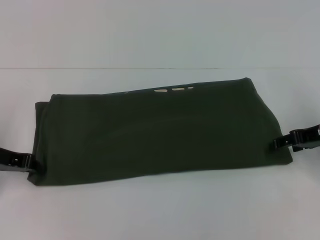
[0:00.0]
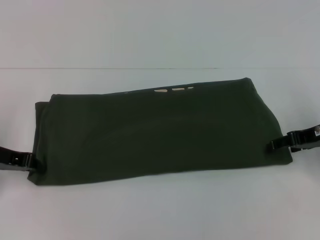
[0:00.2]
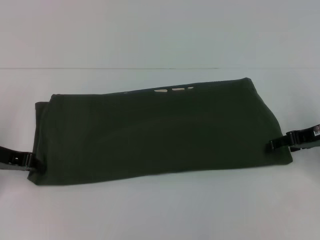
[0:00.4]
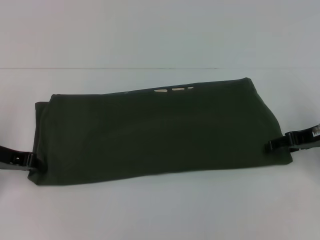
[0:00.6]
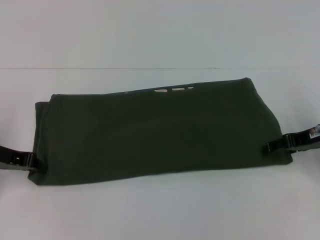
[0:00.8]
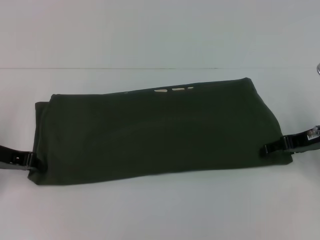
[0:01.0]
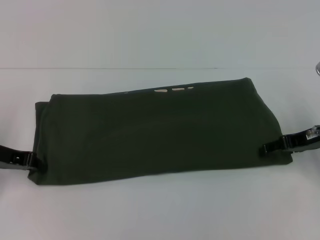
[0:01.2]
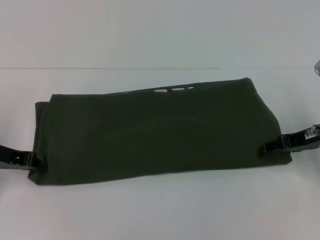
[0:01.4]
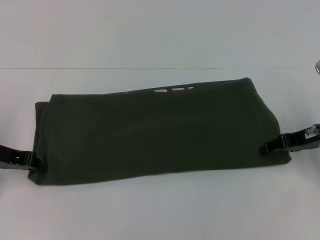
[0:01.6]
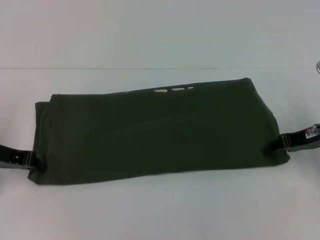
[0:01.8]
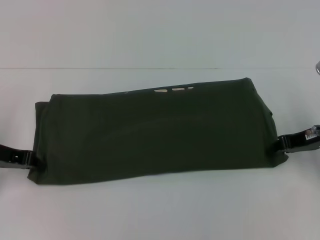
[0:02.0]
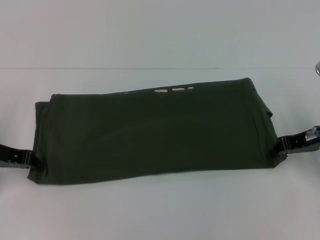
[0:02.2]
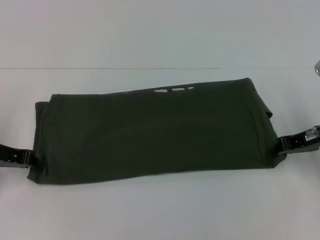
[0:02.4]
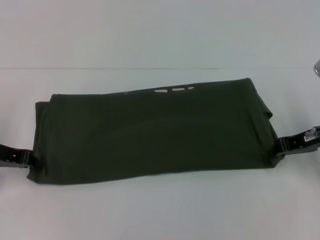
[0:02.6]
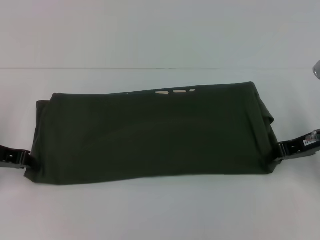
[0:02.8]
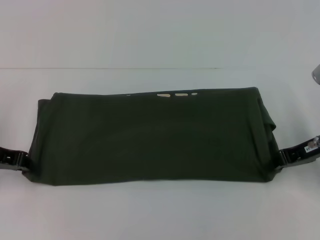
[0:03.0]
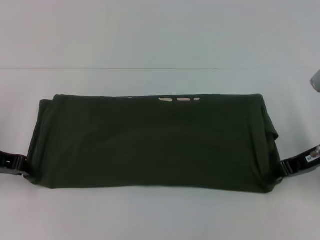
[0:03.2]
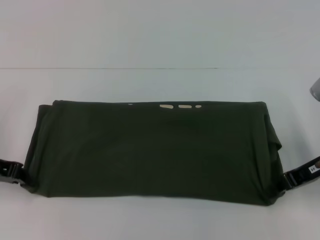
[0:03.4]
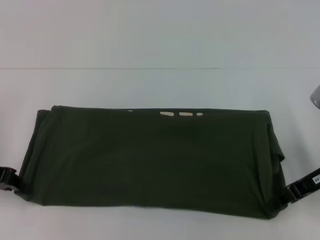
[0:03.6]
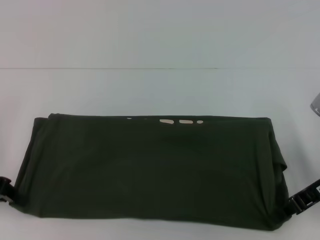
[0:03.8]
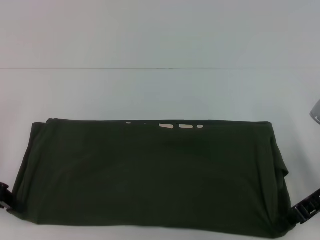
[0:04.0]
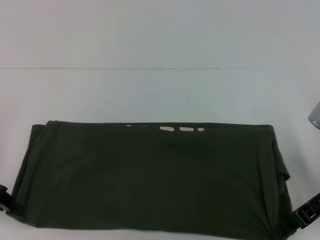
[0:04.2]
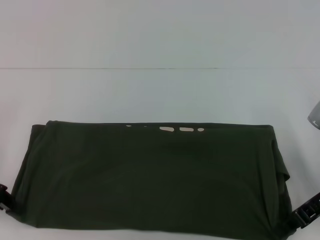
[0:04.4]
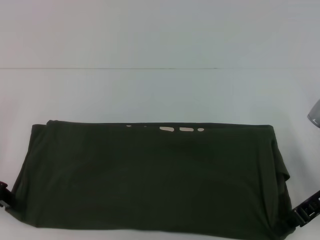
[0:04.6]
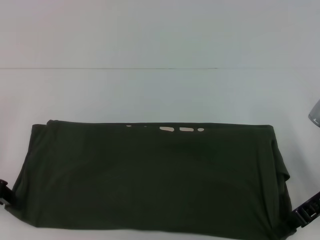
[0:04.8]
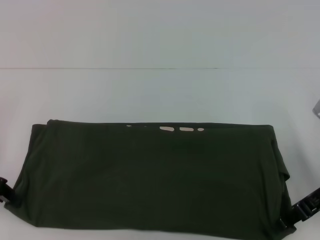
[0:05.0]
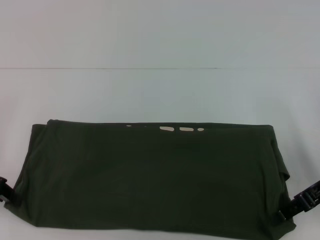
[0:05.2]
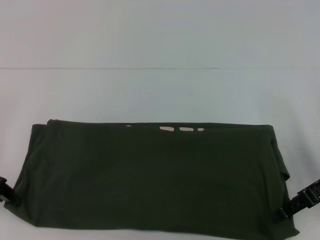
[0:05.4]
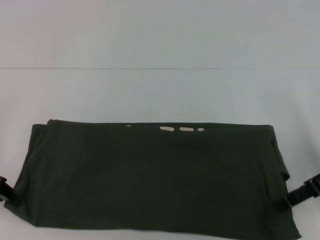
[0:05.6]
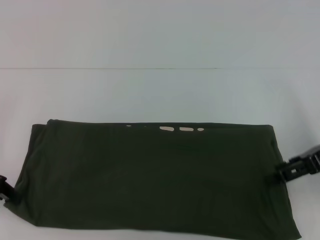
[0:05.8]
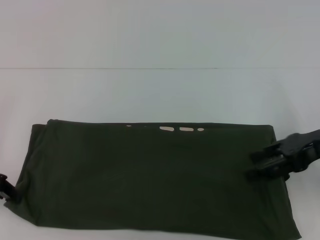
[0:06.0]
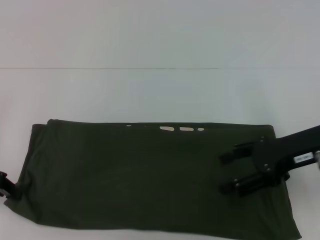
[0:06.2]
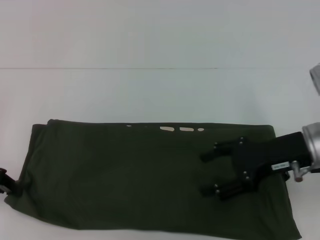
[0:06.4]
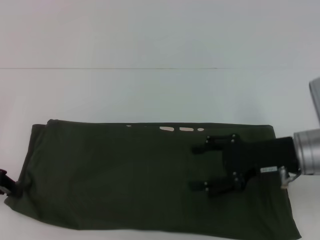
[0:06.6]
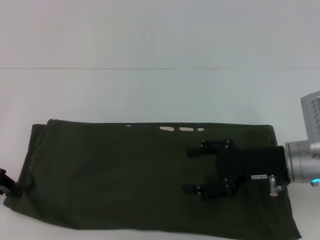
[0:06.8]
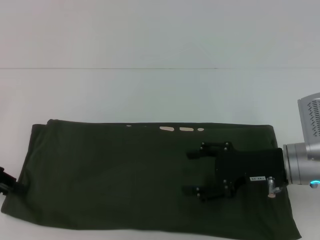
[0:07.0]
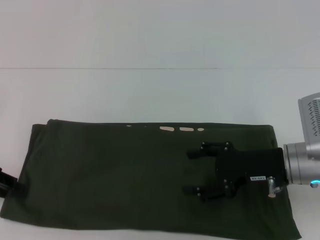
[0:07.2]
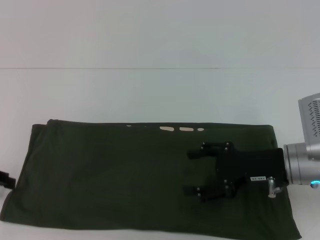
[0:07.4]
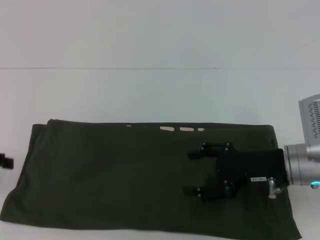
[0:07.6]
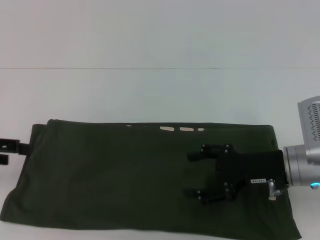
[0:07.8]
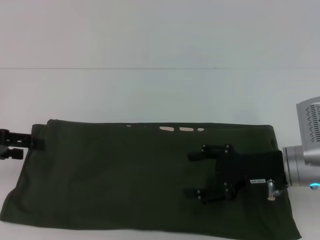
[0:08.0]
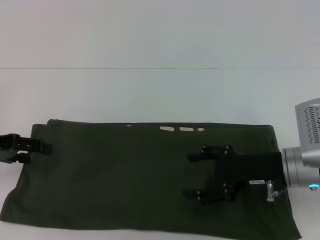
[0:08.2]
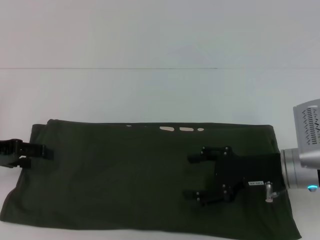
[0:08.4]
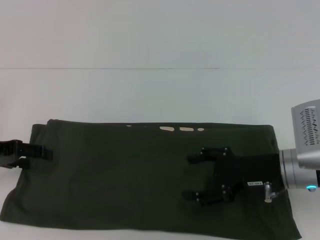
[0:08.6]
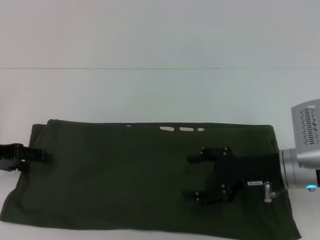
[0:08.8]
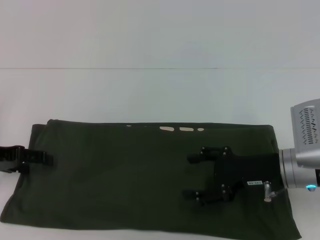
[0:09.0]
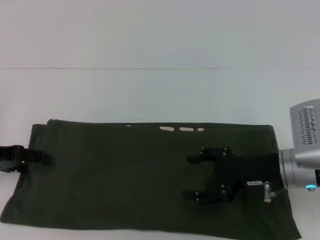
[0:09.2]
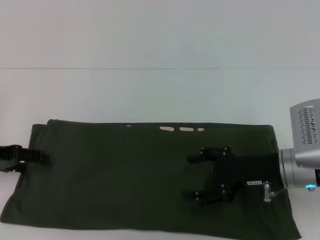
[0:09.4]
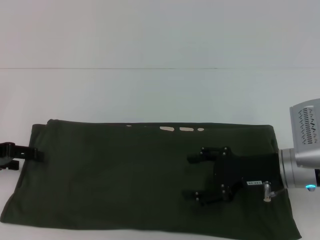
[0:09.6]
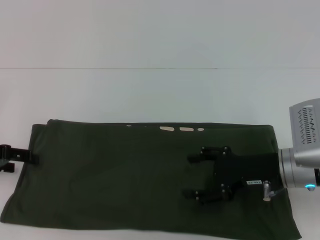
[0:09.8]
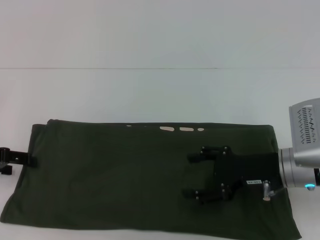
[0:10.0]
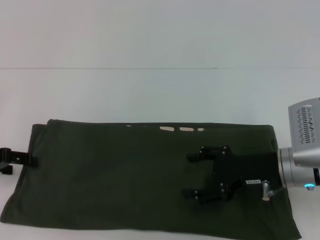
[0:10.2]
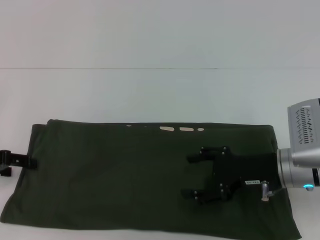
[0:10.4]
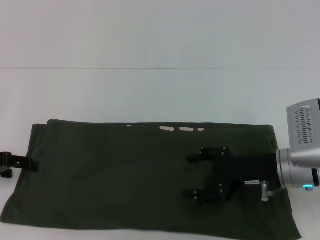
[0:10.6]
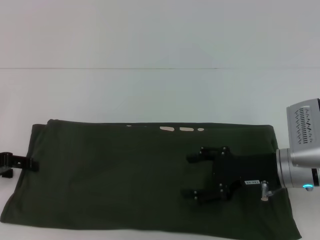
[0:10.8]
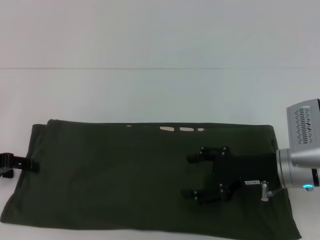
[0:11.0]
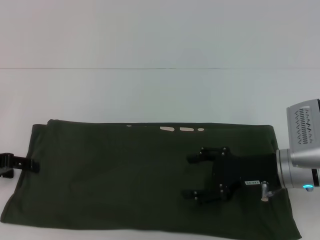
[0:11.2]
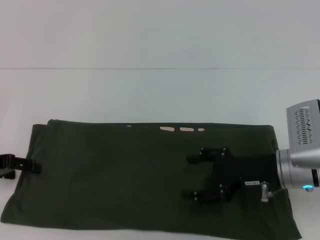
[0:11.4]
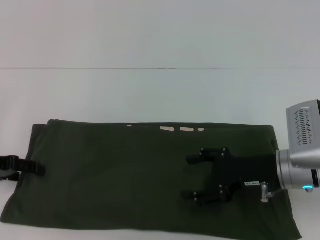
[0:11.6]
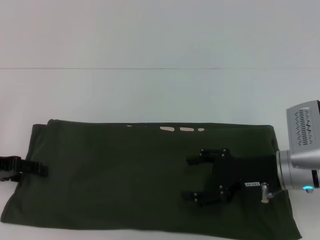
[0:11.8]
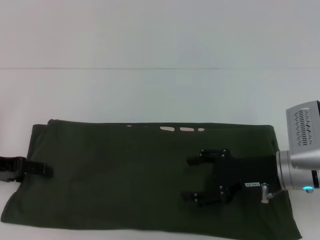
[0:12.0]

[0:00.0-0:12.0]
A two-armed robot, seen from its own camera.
Step, 0:00.0 to 0:05.4: Pull the clothes with your left hand.
Step, 0:00.0 to 0:05.4: Pull the clothes with your right hand.
0:00.0 to 0:01.6: There are only small adjustments of the grippers.
0:01.6 to 0:03.0: The right gripper closes.
0:04.4 to 0:06.0: The right gripper is displaced upward by about 5 cm, and opens its fingers.
0:06.0 to 0:07.6: The left gripper opens its fingers. The right gripper goes approximately 10 cm downward and to the left.
0:07.6 to 0:09.0: The left gripper changes place by some 5 cm.
0:09.0 to 0:12.0: The grippers move only a little.

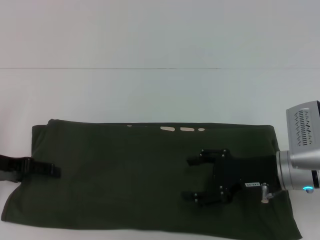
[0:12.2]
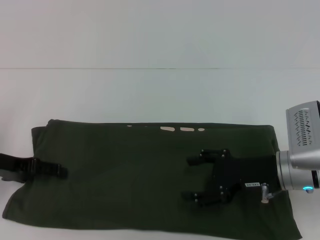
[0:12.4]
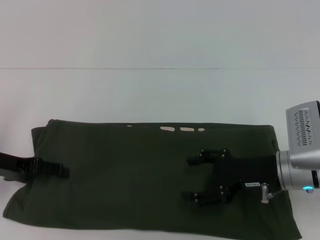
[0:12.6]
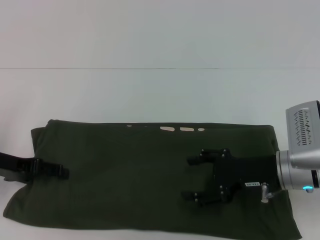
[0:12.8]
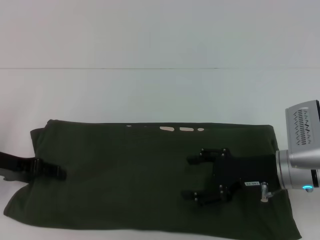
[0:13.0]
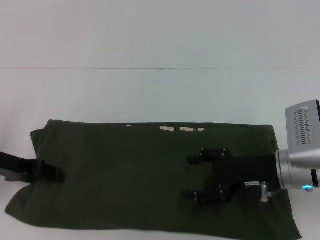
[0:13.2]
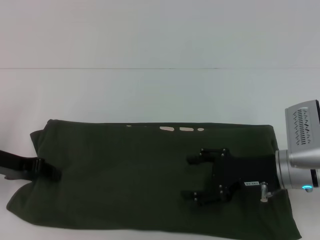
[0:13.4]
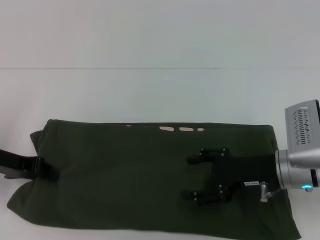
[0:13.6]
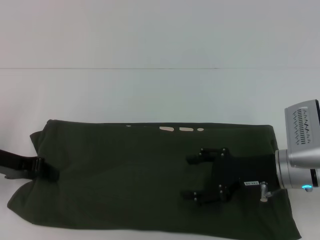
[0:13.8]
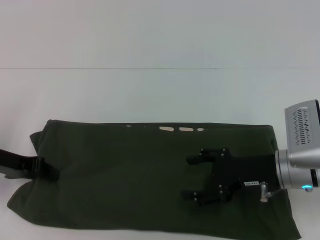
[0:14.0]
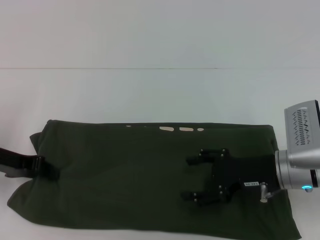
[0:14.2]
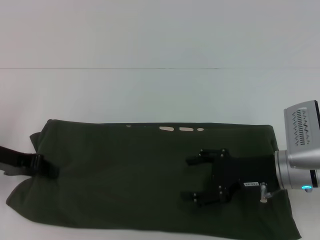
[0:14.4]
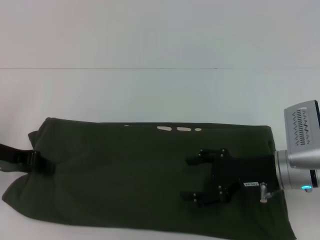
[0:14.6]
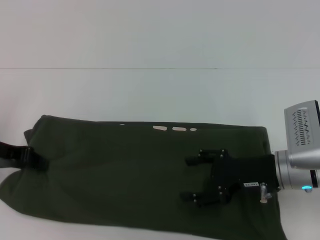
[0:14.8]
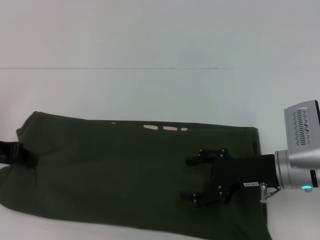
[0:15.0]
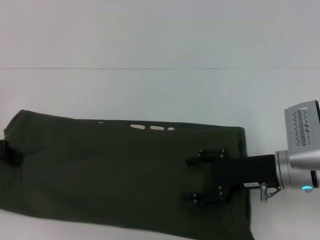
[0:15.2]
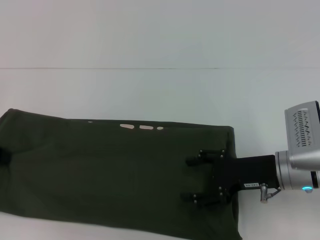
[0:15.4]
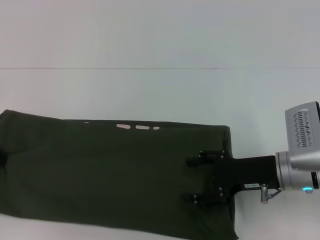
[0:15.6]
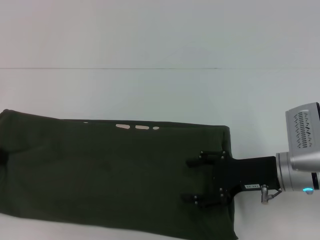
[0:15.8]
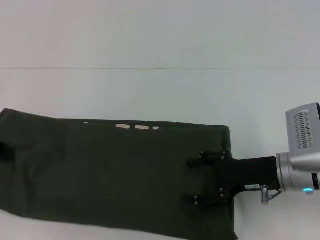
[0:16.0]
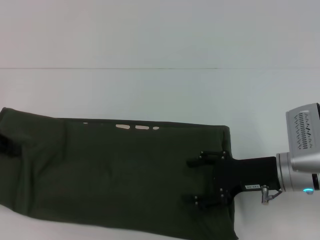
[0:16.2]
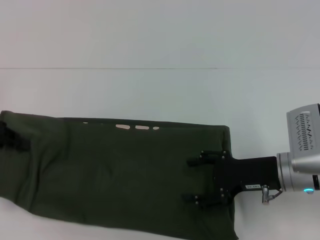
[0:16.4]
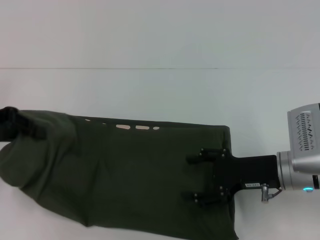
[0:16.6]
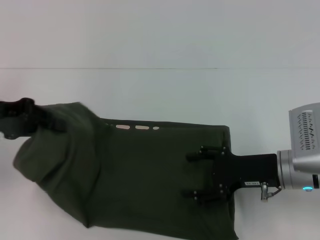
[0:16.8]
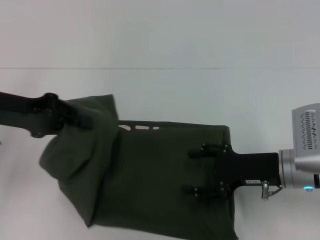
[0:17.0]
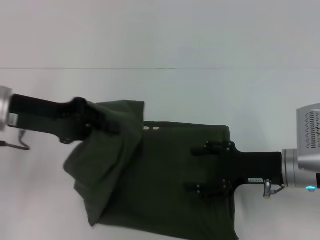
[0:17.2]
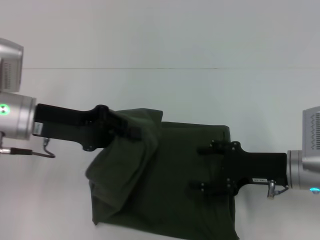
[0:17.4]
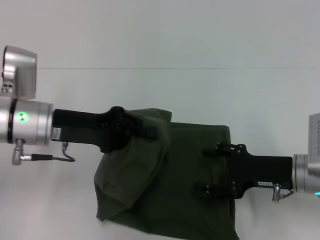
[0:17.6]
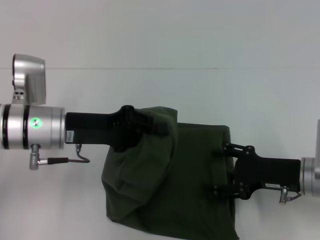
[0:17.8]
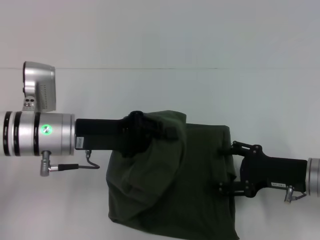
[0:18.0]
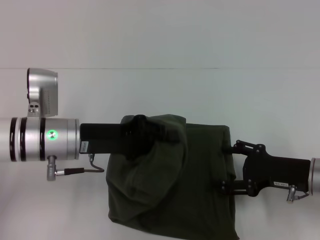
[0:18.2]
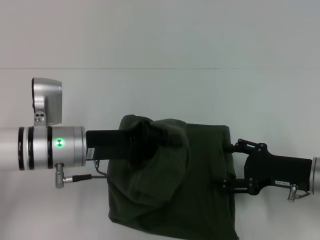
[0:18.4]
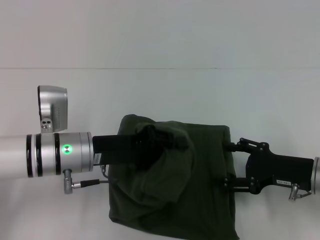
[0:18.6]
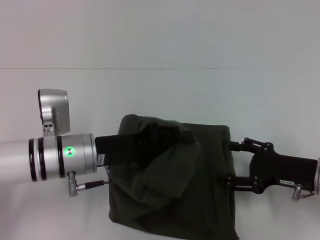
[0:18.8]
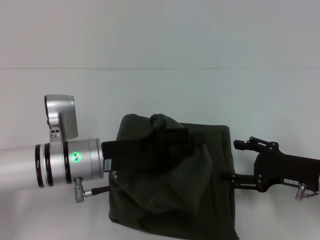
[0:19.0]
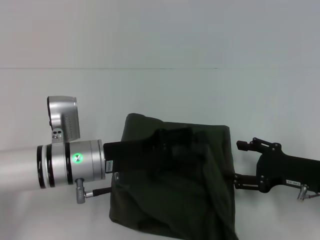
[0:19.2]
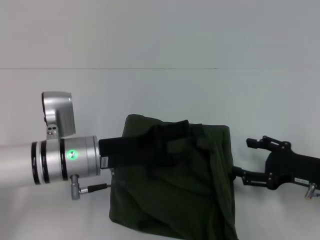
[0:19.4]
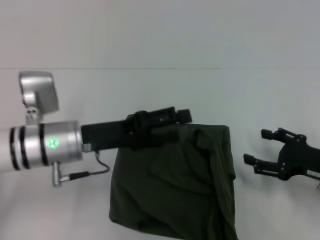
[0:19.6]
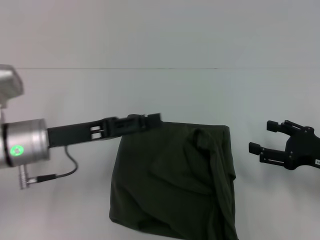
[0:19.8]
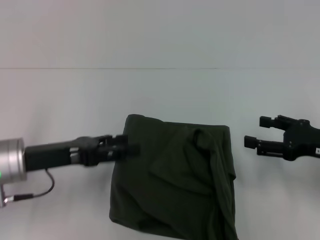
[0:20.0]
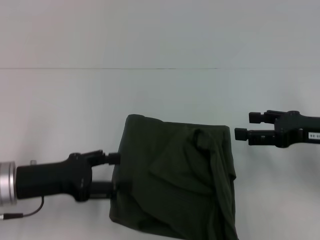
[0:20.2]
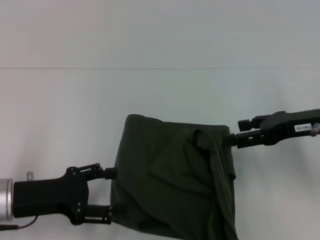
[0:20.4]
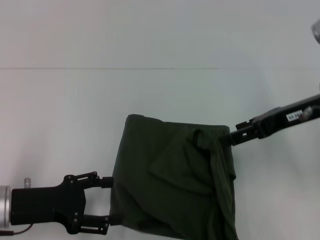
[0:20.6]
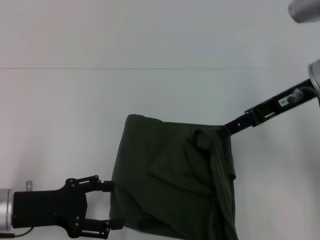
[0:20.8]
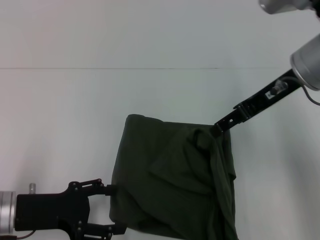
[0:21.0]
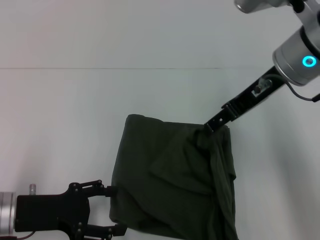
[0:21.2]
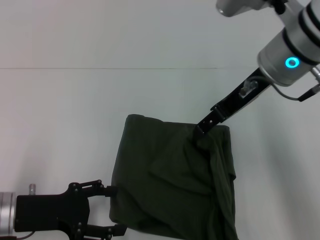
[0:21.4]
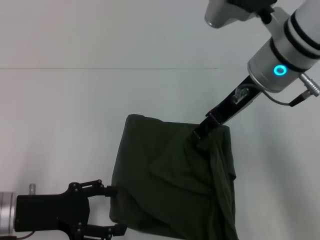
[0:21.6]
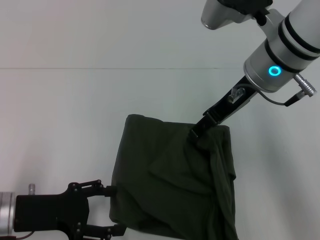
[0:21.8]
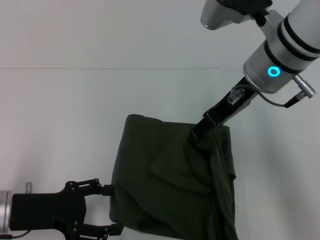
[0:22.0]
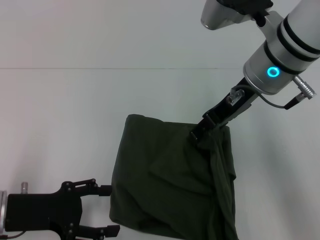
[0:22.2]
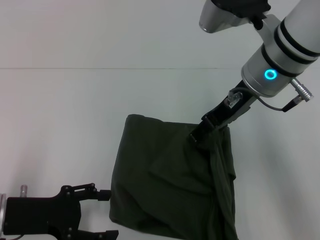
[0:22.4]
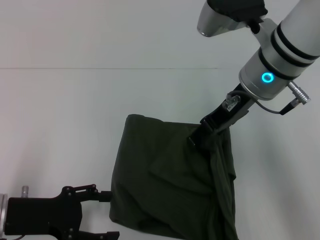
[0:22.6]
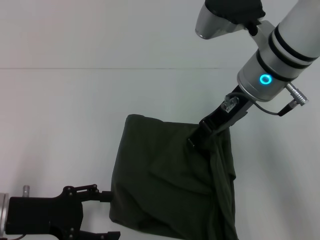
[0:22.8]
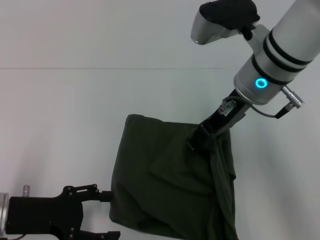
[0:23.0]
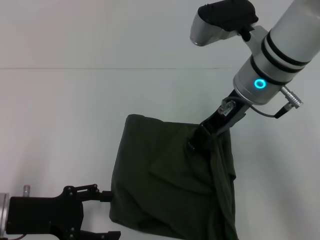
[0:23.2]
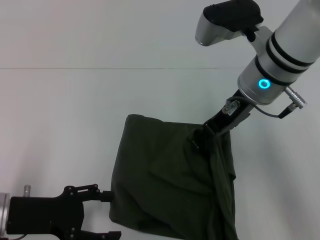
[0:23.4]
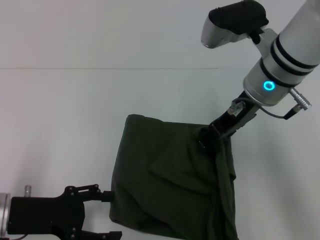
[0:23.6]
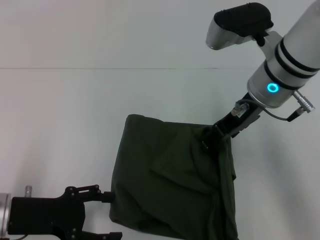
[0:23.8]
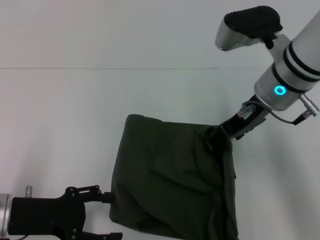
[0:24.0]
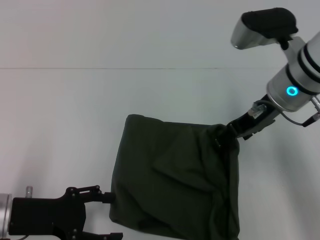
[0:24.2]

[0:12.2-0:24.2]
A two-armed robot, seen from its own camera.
Step, 0:12.2 to 0:19.4: Fold the clothes with your left hand.
0:12.2 to 0:13.8: The left gripper closes up.
0:13.8 to 0:15.2: The left gripper moves about 5 cm.
0:15.2 to 0:16.6: The left gripper moves about 5 cm.
0:16.6 to 0:18.2: The right gripper shifts by approximately 5 cm. The left gripper shifts some 20 cm to the right and downward.
0:18.2 to 0:19.8: The right gripper heads to the right, covering about 5 cm, while the left gripper opens.
0:19.8 to 0:21.2: The right gripper goes roughly 25 cm upward, to the left and forward. The left gripper heads backward, covering about 5 cm.
0:21.2 to 0:22.6: There are only small adjustments of the grippers.
0:22.6 to 0:24.2: The right gripper changes place by approximately 5 cm.
